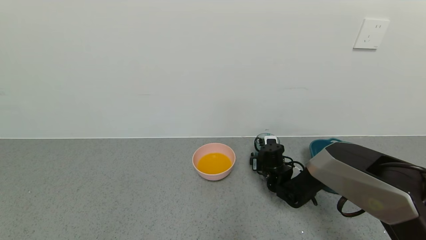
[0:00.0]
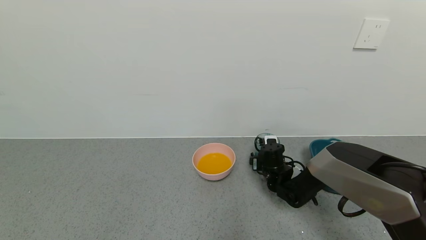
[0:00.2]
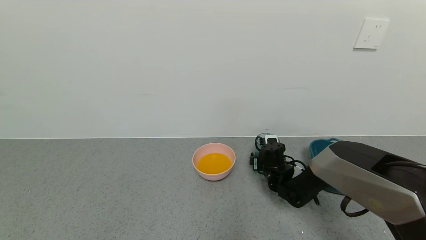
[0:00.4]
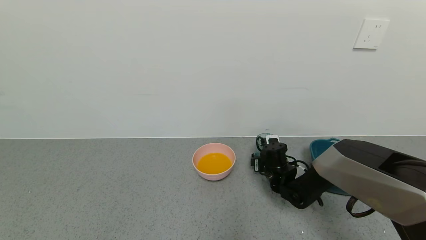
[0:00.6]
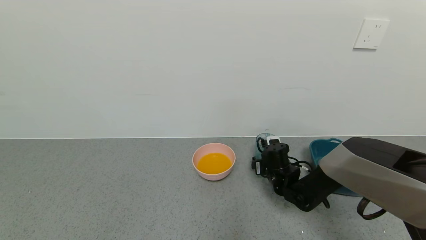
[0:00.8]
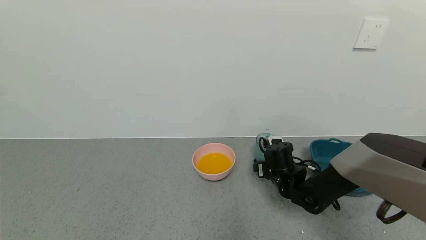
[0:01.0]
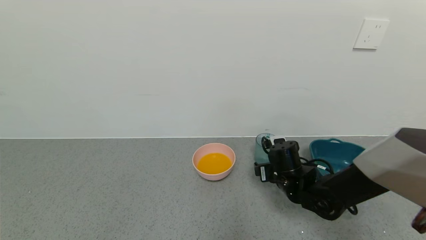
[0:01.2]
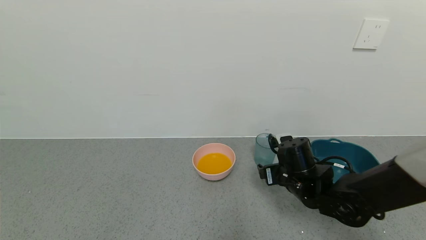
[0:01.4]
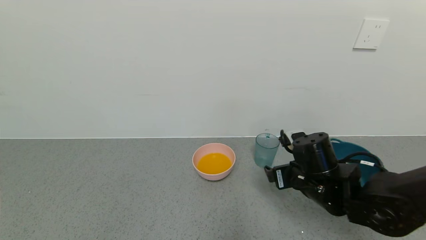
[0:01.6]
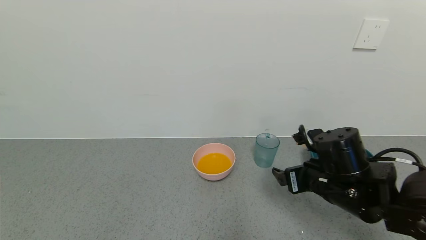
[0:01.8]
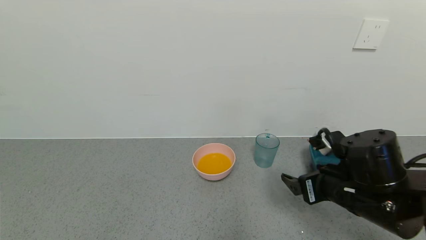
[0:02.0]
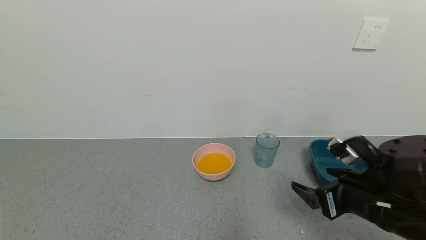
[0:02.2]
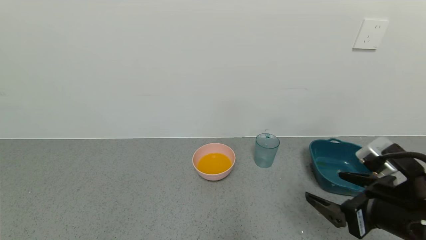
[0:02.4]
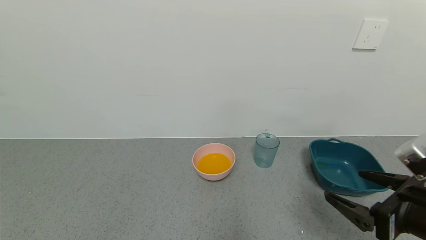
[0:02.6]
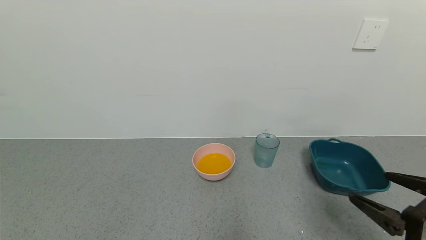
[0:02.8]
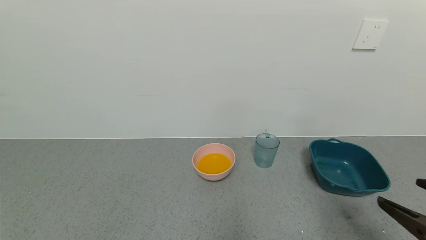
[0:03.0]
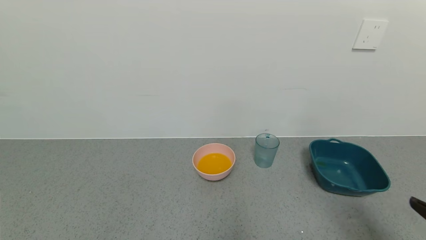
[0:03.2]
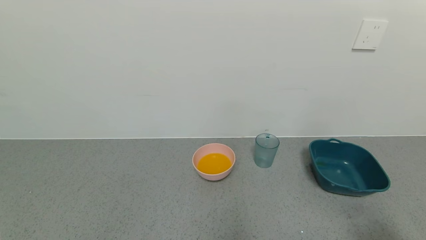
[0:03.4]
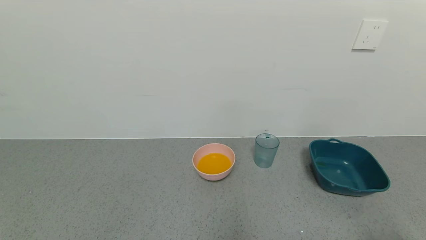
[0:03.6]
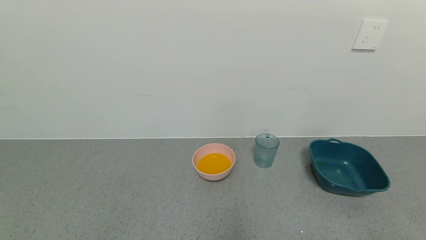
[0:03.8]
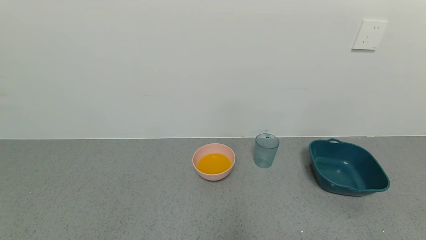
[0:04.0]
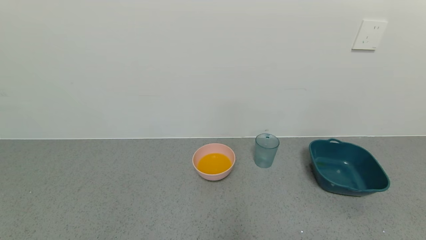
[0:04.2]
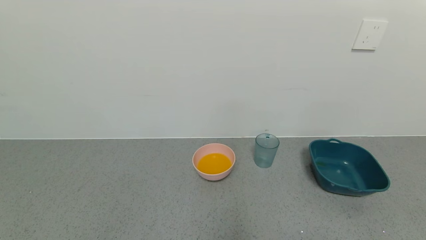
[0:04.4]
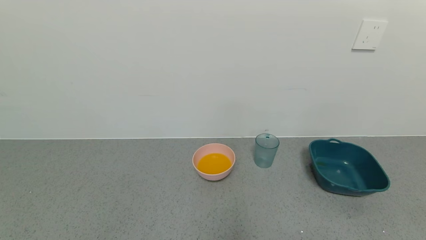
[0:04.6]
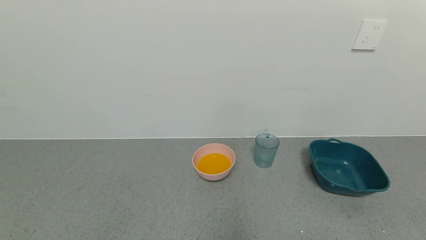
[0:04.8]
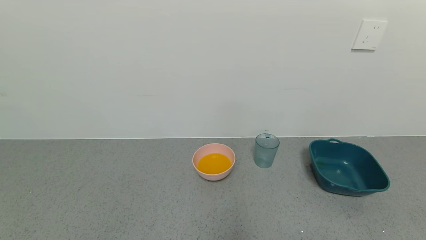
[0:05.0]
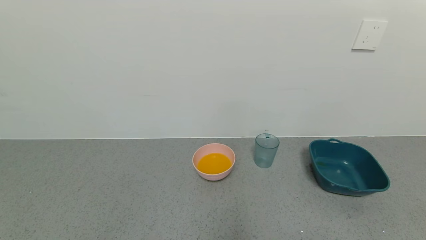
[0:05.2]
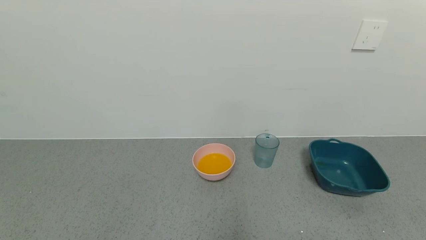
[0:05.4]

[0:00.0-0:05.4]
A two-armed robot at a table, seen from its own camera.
Task of the whole recording: use a gripper to pick up the cup and pour the liquid into a bowl or tray.
0:00.0 to 0:01.4: The right gripper heads backward and upward, covering roughly 15 cm.
0:01.4 to 0:02.8: The right gripper travels backward, to the right and upward by some 25 cm.
0:02.8 to 0:04.0: The right gripper heads backward, covering some 15 cm.

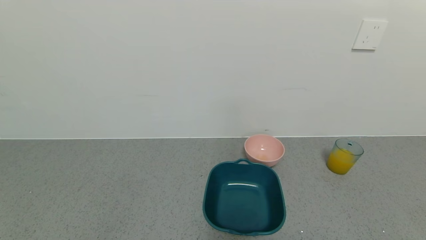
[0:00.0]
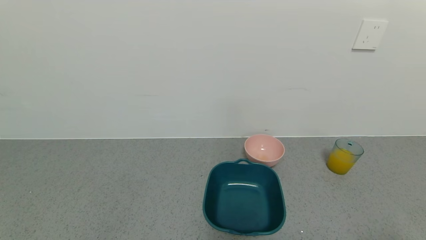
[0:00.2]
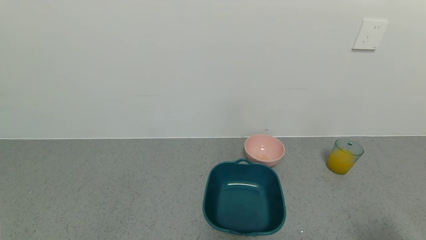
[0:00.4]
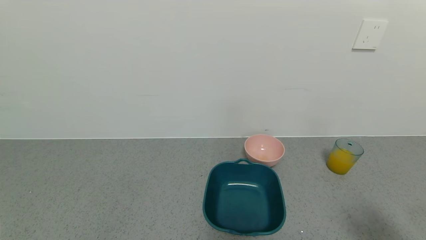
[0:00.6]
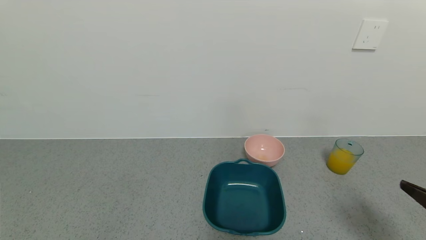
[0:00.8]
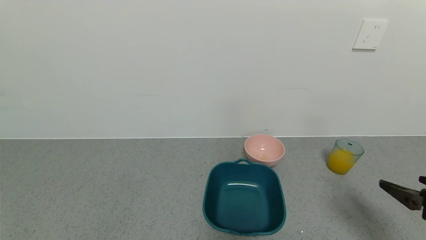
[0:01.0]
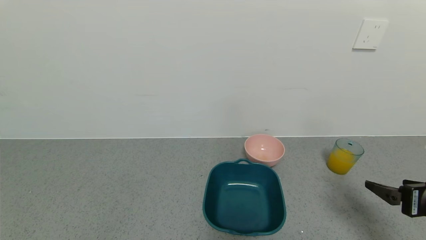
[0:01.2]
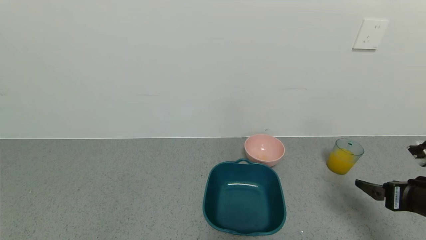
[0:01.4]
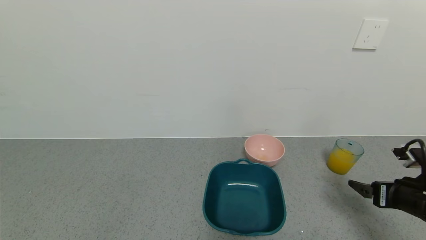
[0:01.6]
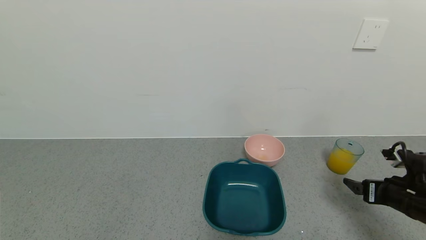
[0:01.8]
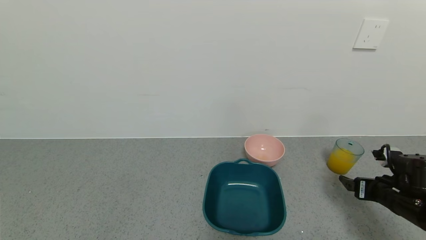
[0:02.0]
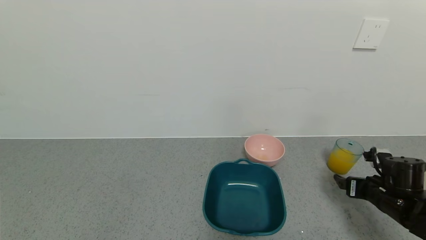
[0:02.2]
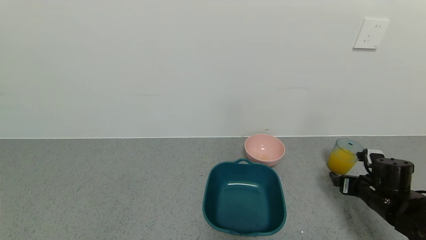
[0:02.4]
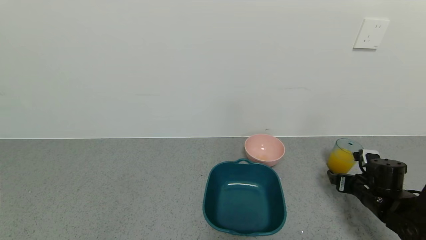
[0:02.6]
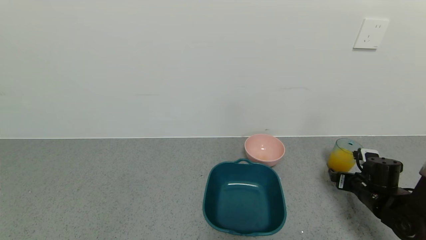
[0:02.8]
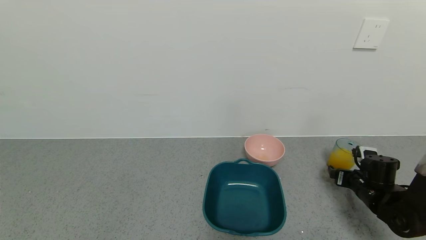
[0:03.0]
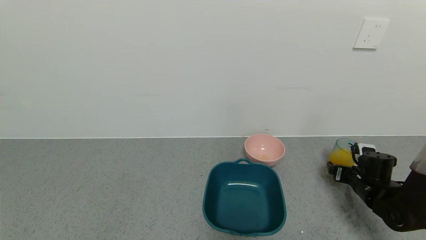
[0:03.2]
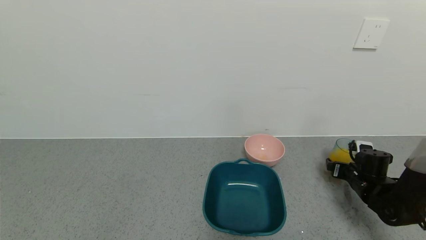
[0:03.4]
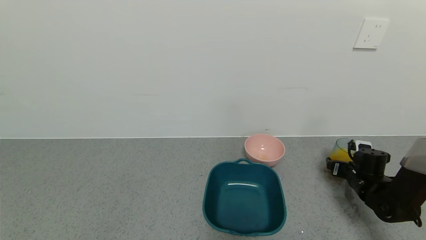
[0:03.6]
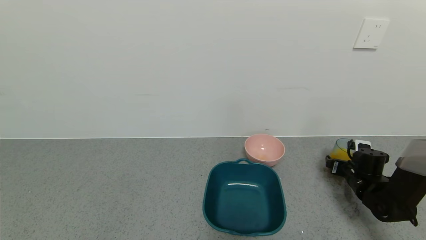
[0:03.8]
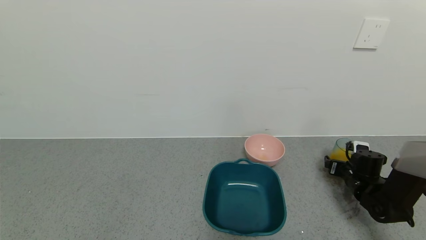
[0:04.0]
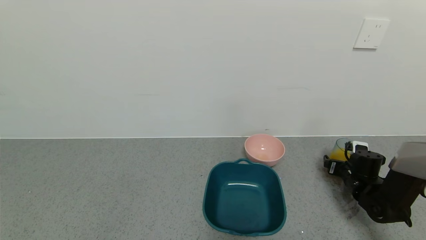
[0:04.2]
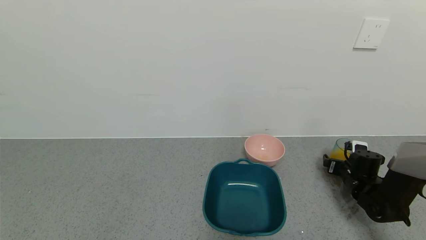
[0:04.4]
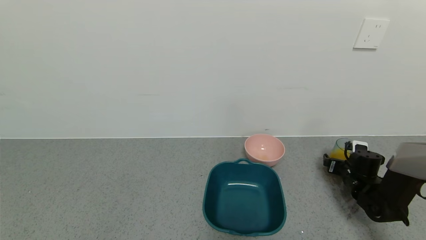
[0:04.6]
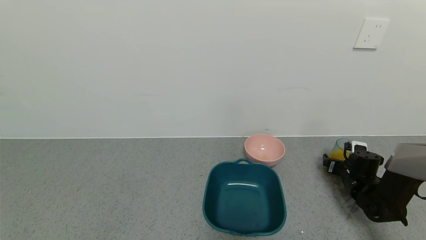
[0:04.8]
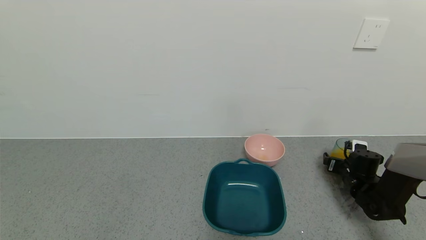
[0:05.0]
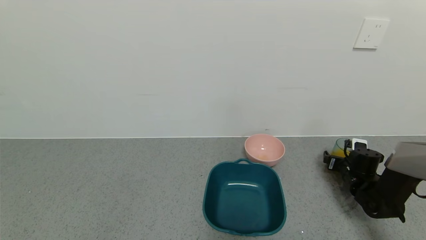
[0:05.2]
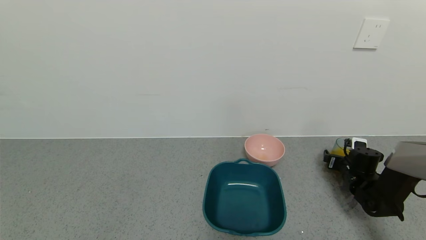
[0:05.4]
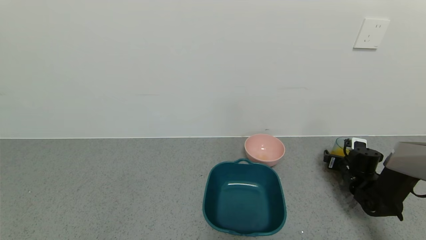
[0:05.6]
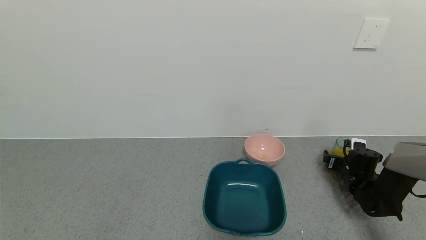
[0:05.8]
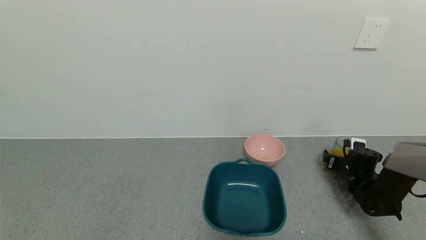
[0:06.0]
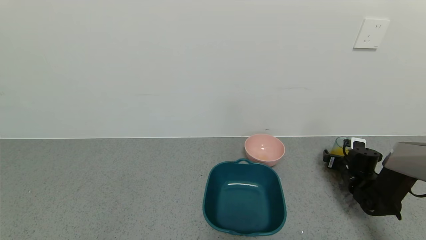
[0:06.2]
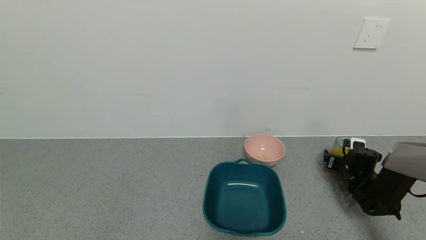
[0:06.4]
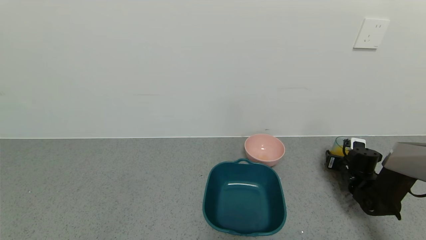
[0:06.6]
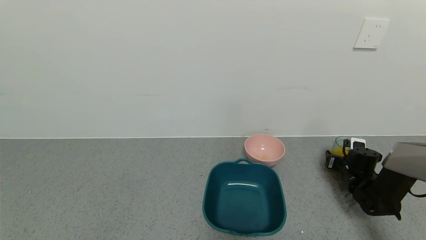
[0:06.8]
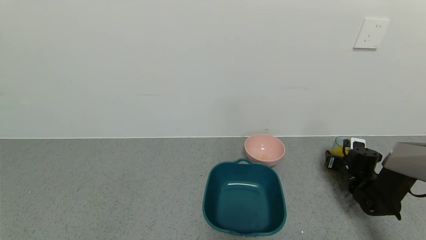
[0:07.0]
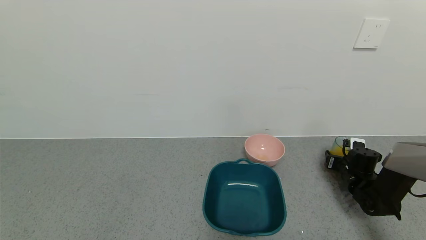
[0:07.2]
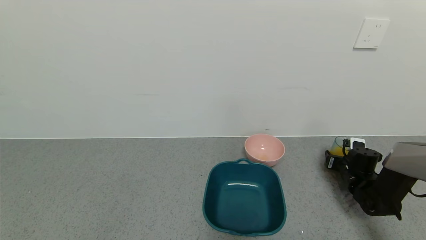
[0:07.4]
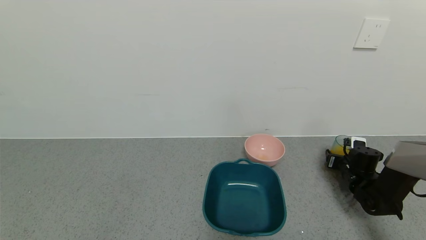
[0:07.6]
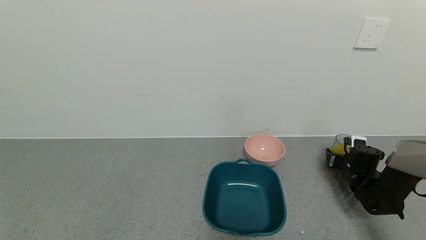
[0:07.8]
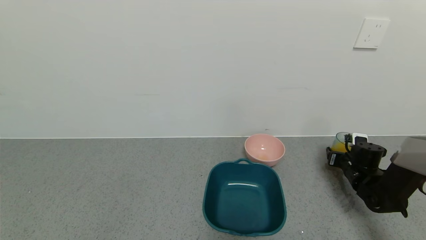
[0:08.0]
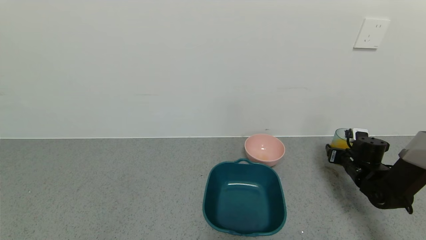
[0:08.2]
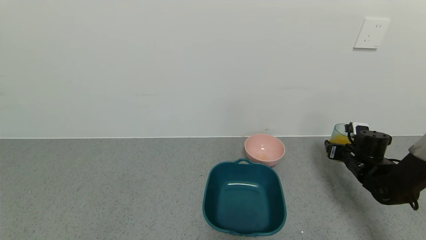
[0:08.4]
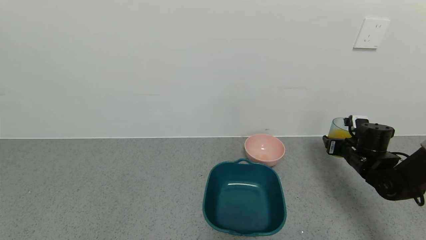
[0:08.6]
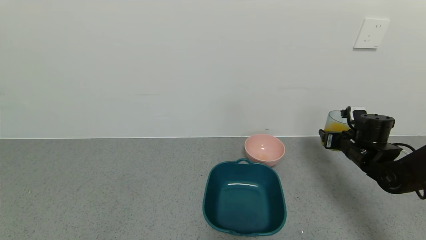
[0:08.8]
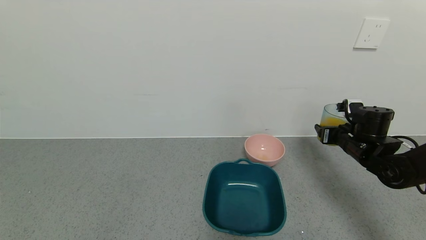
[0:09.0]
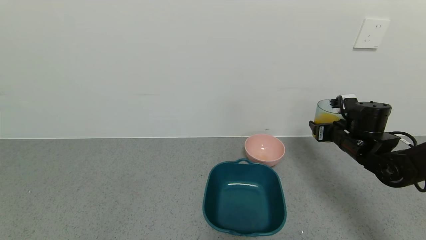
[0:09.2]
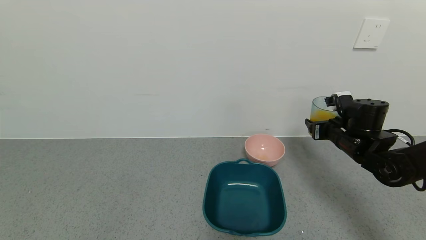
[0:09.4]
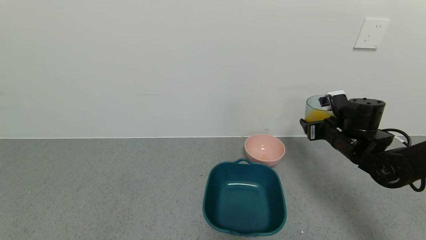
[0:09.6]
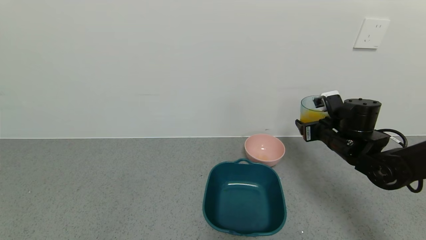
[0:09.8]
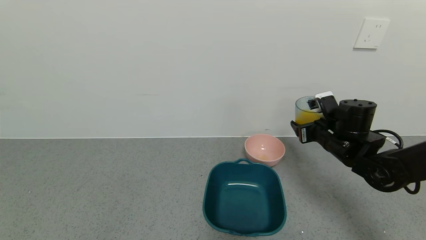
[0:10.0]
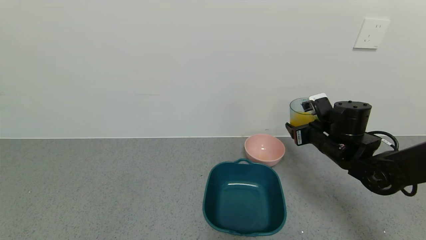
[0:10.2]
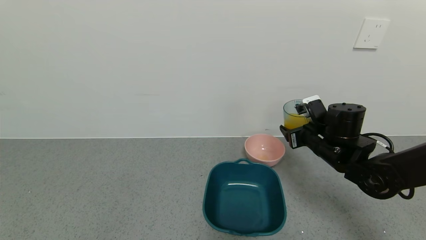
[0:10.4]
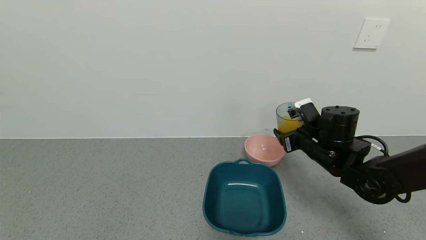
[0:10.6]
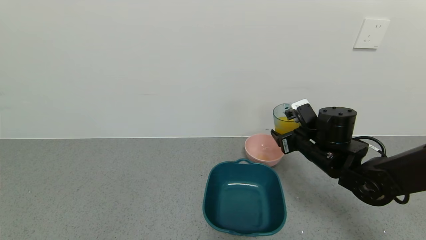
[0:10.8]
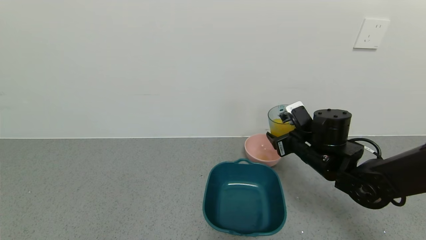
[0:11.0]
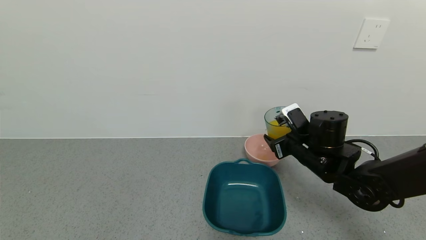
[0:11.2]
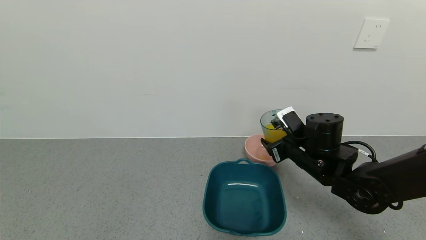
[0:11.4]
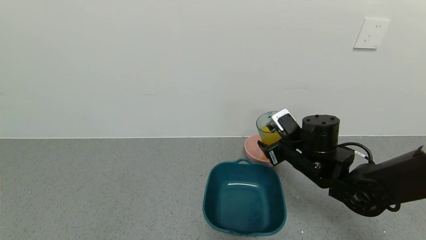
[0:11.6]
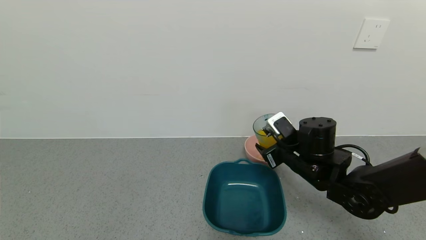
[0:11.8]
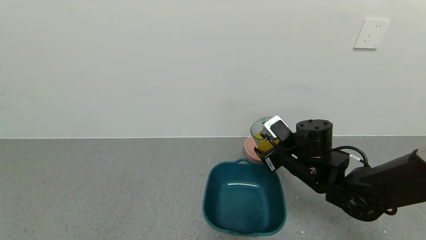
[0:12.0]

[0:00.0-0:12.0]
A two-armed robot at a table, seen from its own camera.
Task of the whole recording: use a gripper to pick up the cup and pour the liquid into a bowl or tray.
Step, 0:00.0 to 0:07.0: Grasp the glass of orange juice with the right gripper.
0:00.0 to 0:01.6: The right gripper travels forward by roughly 20 cm.
0:01.6 to 0:03.0: The right gripper heads forward and downward, covering some 15 cm.
0:03.0 to 0:04.4: The right gripper goes some 5 cm forward.
0:04.4 to 0:06.0: There are only small adjustments of the grippers.
0:07.6 to 0:09.0: The right gripper heads upward and to the left, covering some 15 cm.
0:09.0 to 0:10.4: The right gripper heads to the left, covering approximately 10 cm.
0:10.4 to 0:12.0: The right gripper goes about 5 cm to the left.
